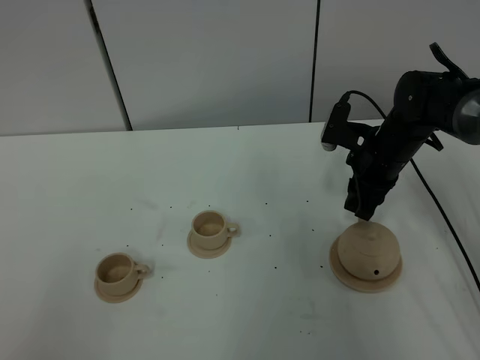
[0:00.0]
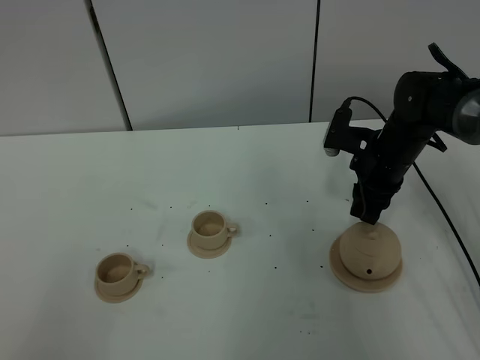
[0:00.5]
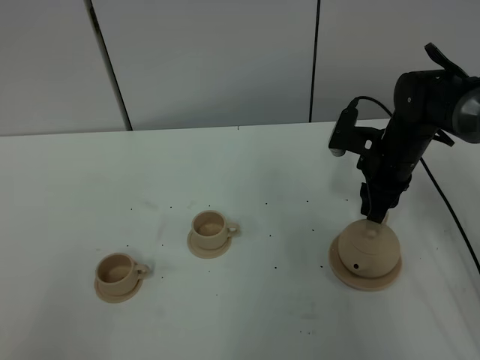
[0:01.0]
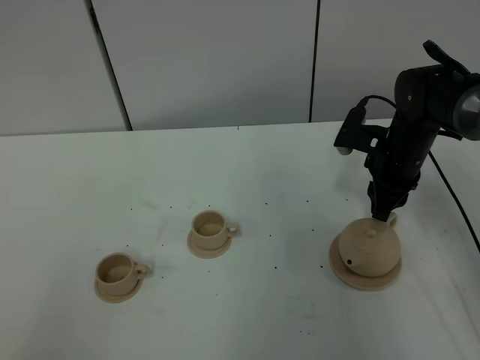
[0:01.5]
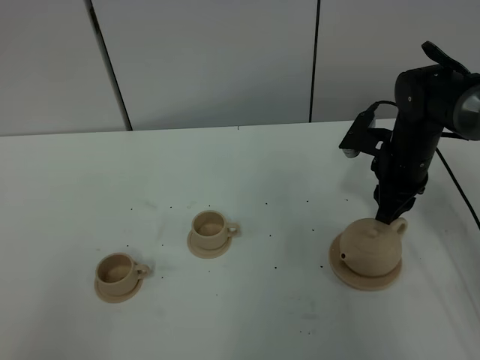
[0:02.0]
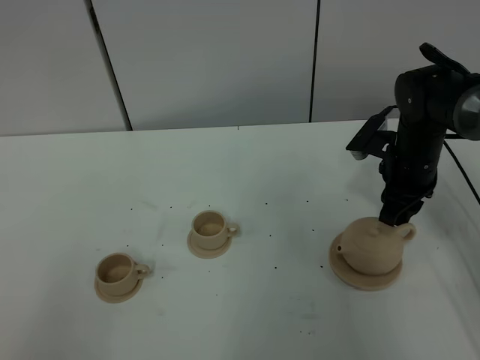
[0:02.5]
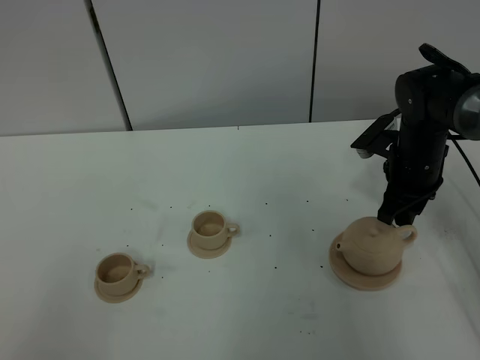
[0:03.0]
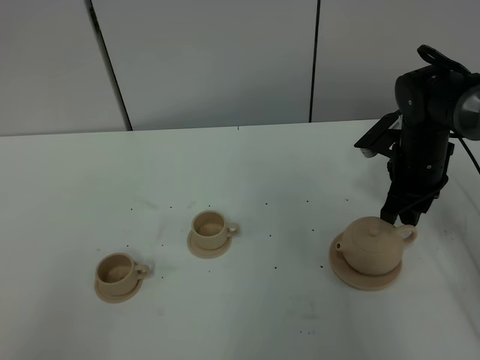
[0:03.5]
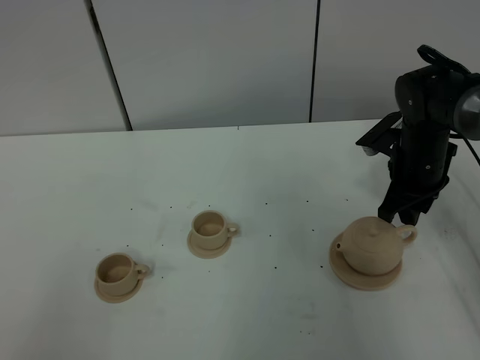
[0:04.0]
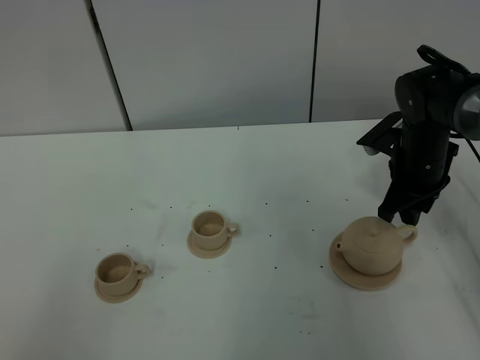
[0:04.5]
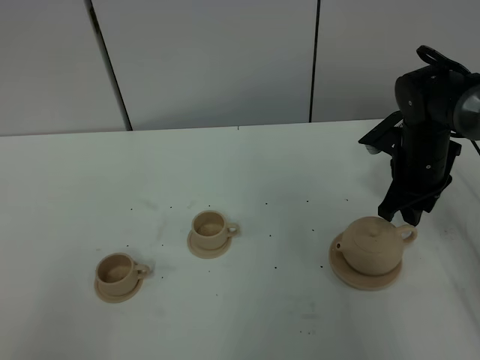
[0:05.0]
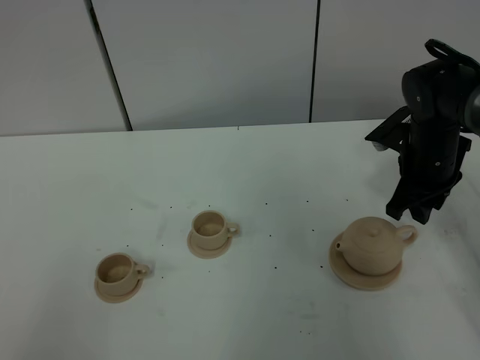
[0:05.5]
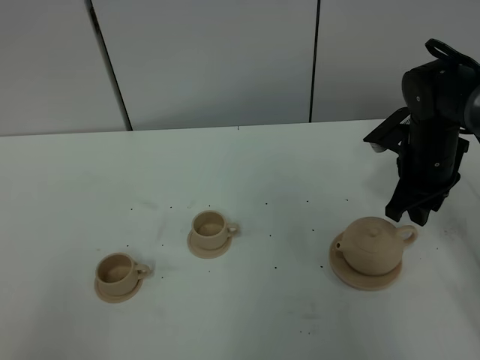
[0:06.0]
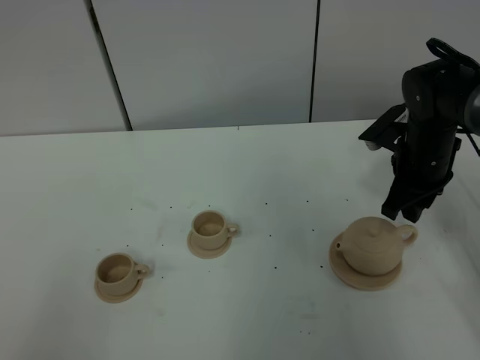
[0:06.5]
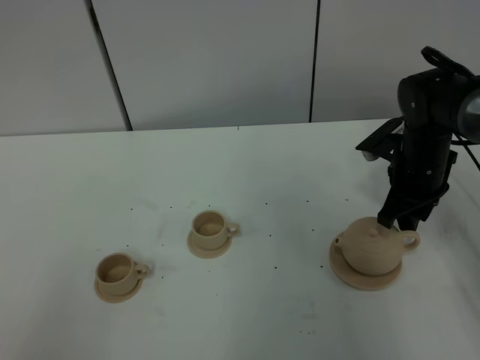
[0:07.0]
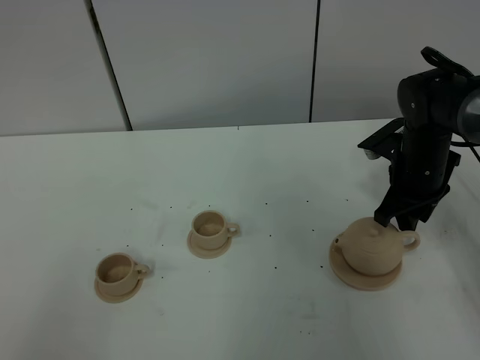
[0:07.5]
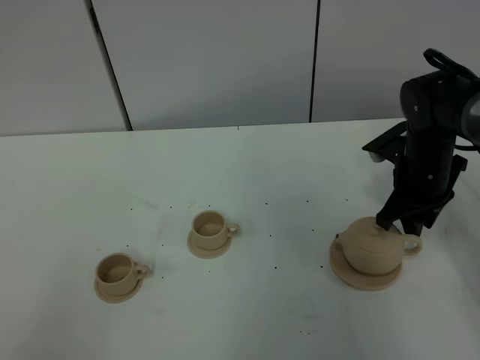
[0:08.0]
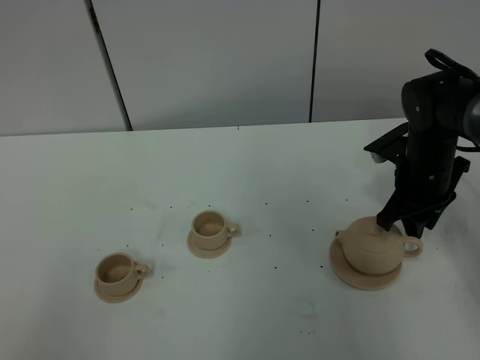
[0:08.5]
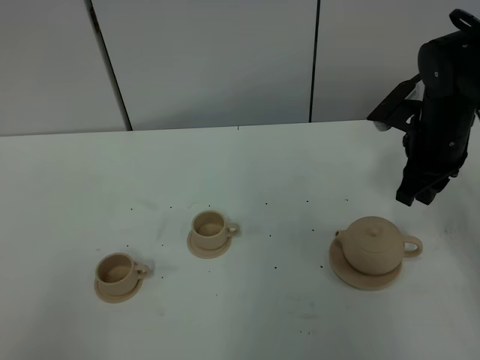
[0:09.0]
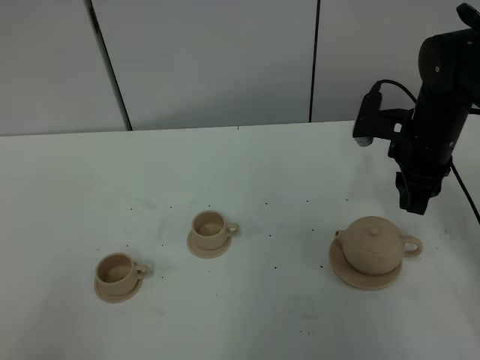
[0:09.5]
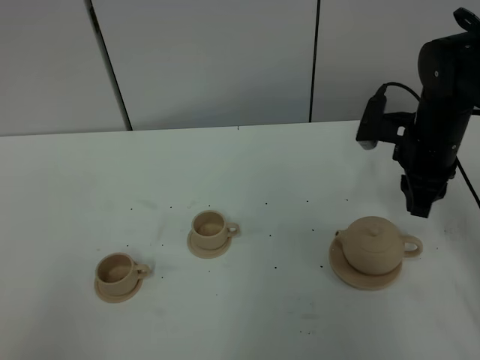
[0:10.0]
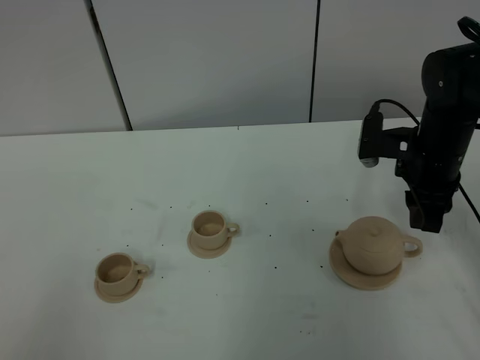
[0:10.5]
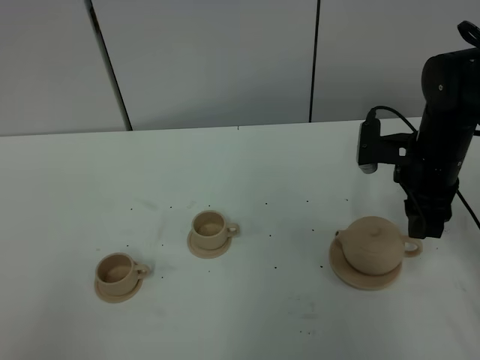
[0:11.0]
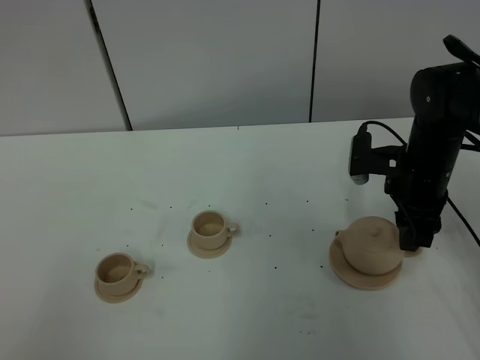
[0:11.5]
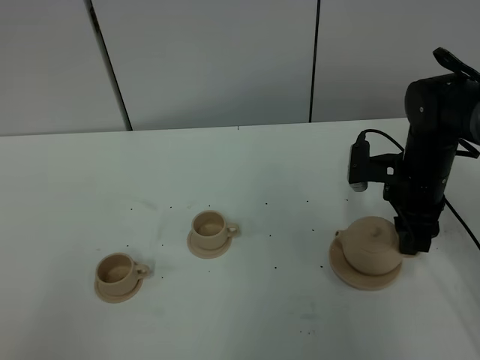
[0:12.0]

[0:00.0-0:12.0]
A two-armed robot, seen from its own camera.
Task of the whole recording: grasp the brown teapot and pour the tea into the two brown teacups one by one, put the brown teapot back in its original place.
0:00.0 to 0:02.0: The grippers stay close to where they were, moving slightly.
0:02.0 to 0:04.0: The grippers make only small movements.
0:04.0 to 0:08.0: The grippers make only small movements.
0:08.0 to 0:10.0: The right gripper goes about 5 cm upward.
0:10.0 to 0:12.0: The grippers move only a little.

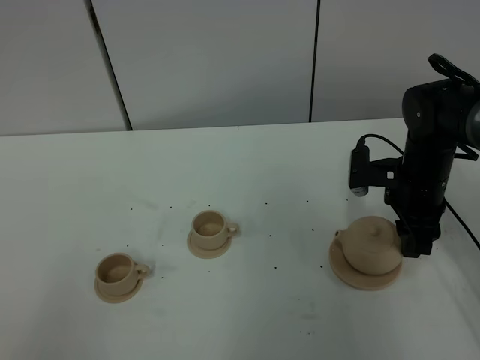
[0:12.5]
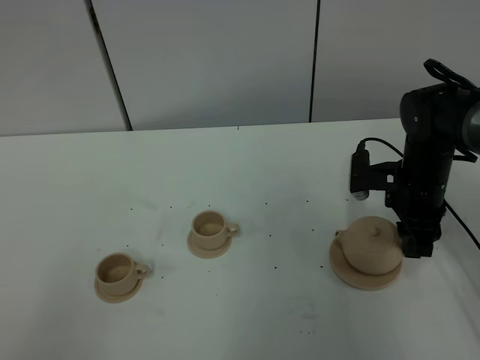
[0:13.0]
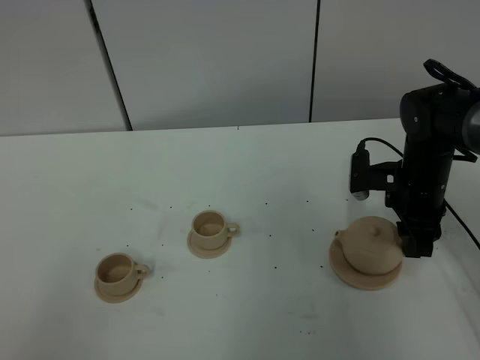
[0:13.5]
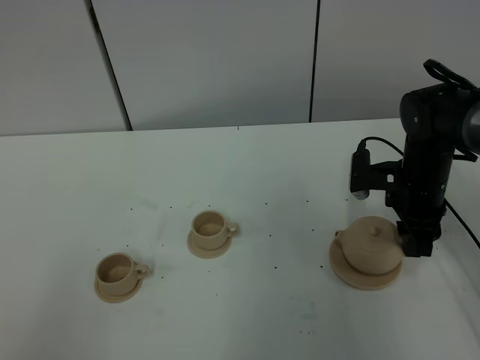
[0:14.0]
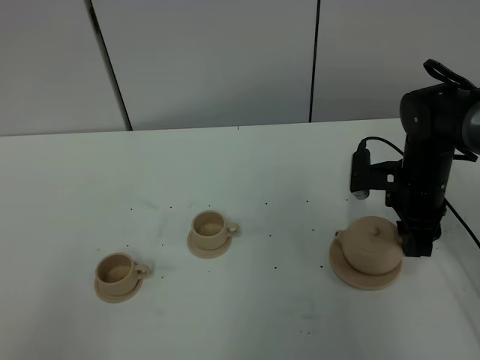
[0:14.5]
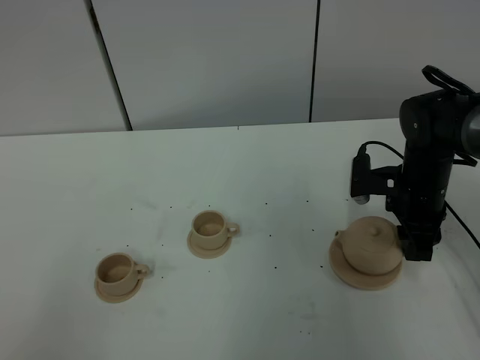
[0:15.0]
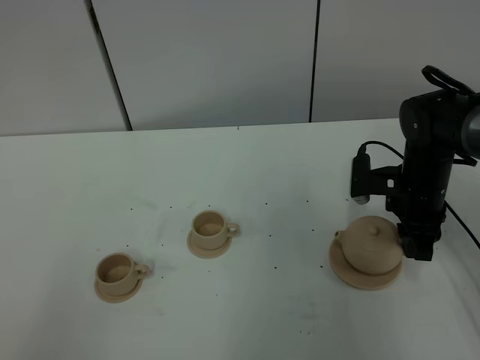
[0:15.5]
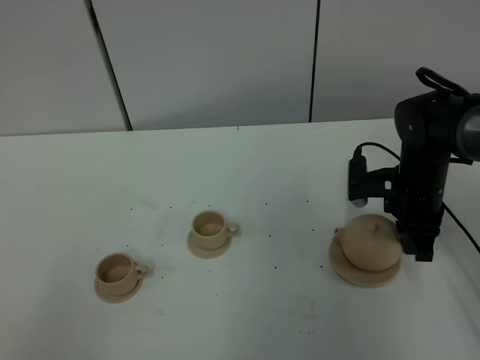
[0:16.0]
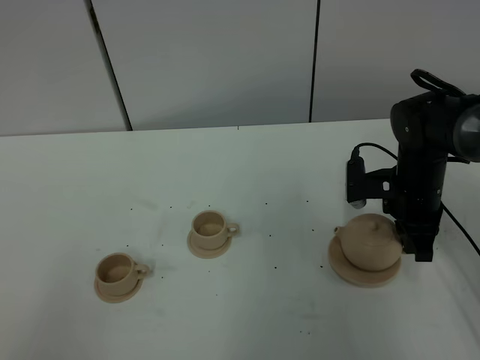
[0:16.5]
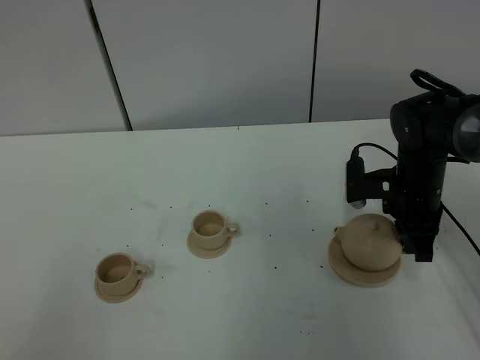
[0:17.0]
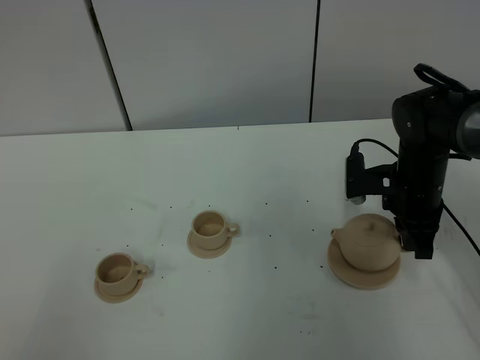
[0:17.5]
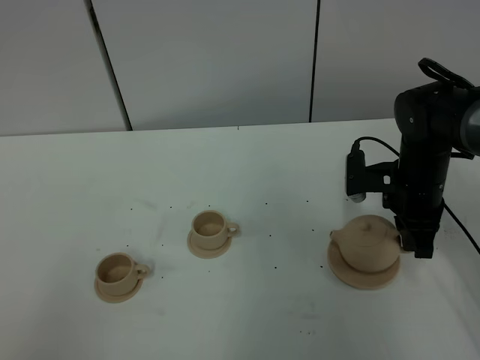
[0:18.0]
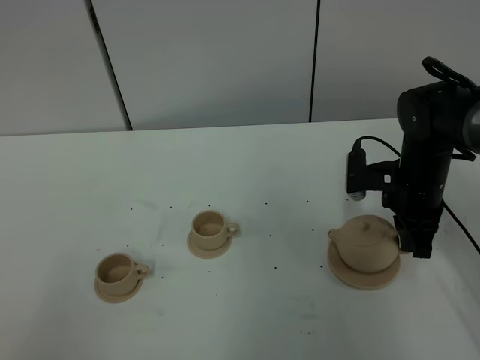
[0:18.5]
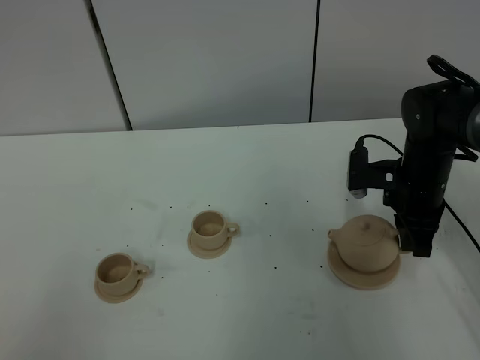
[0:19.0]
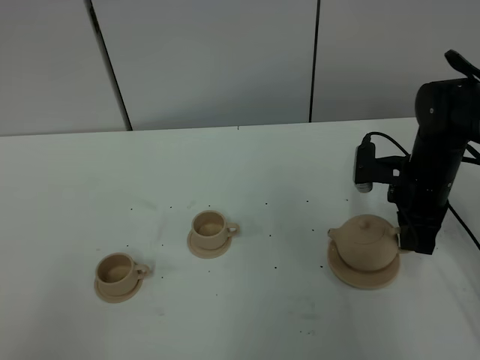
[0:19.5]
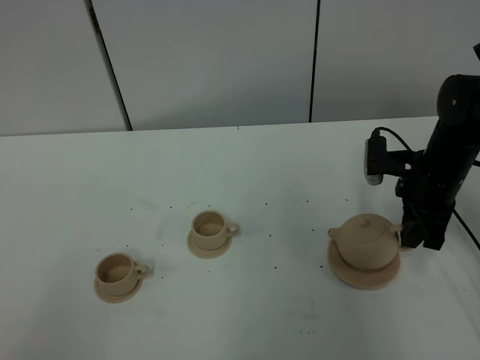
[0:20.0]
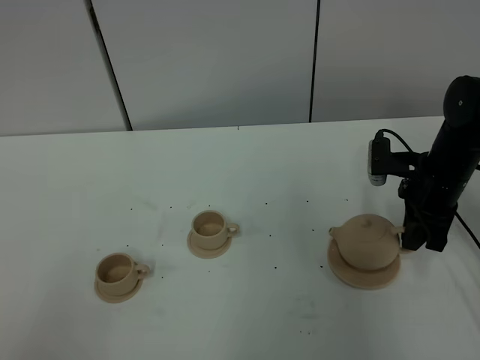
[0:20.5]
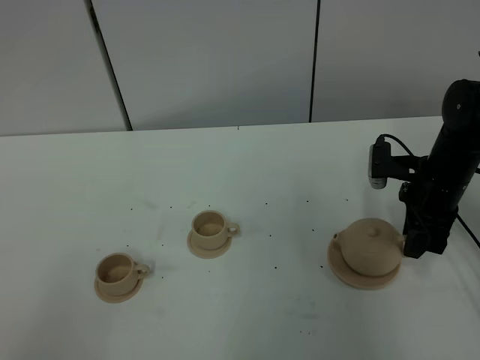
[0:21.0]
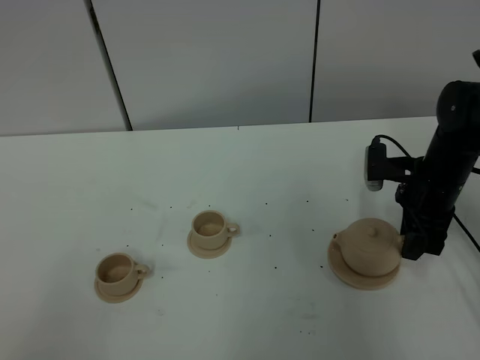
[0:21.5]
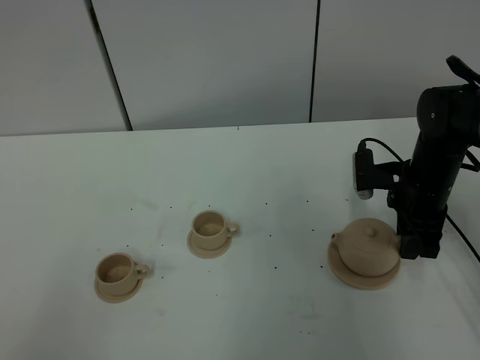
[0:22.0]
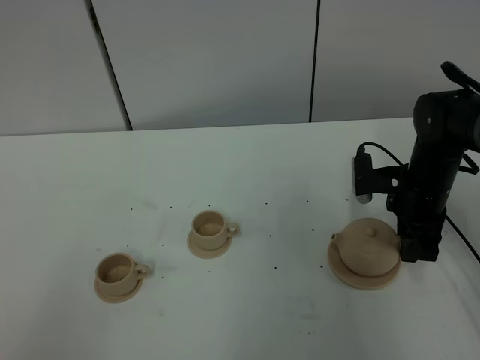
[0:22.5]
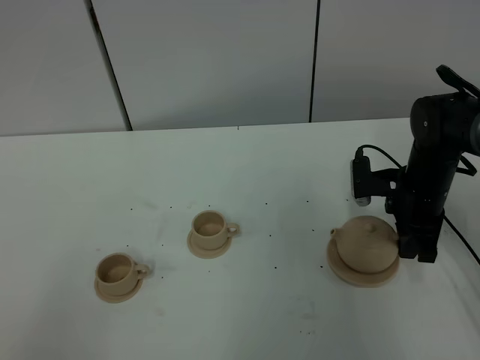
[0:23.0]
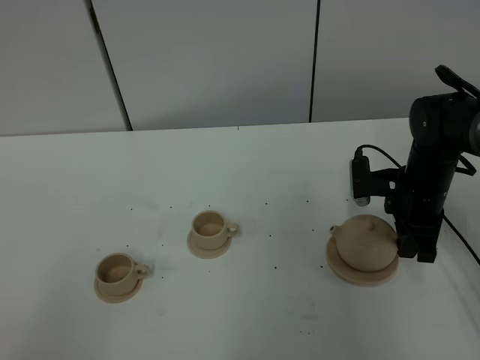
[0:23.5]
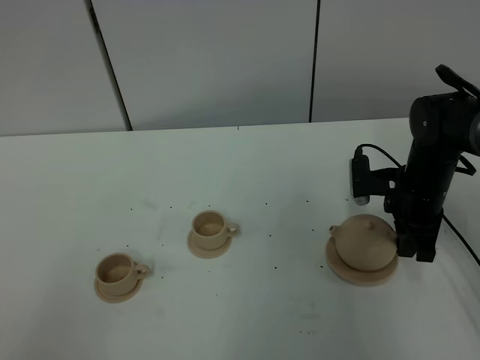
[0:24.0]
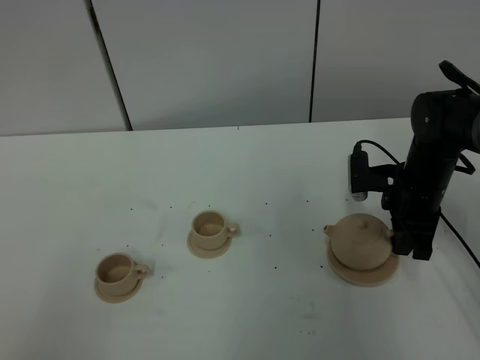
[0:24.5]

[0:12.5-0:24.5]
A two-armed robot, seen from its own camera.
Task of the whole recording: grasp the brown teapot and pour the tea into the two brown teacups one by one, put the brown teapot back in its original place.
0:12.5 to 0:14.5: The two grippers keep their place.
0:14.5 to 0:16.5: The right gripper closes its fingers.
0:16.5 to 0:20.5: There are only small adjustments of the grippers.
0:20.5 to 0:22.5: The right gripper opens up.
0:22.5 to 0:24.5: The right gripper closes its fingers.

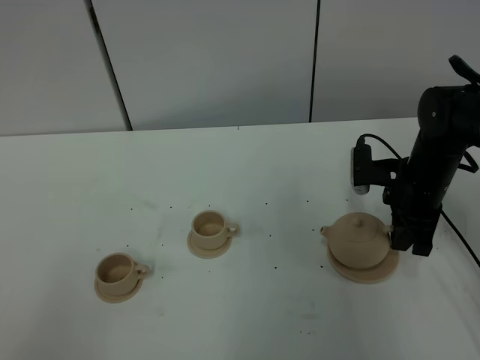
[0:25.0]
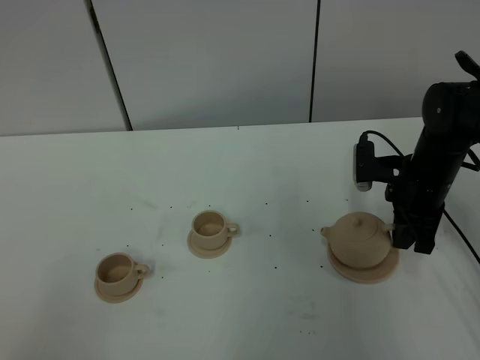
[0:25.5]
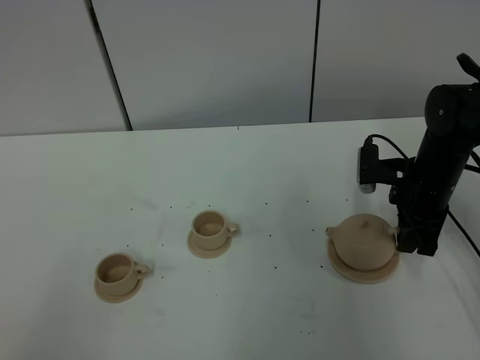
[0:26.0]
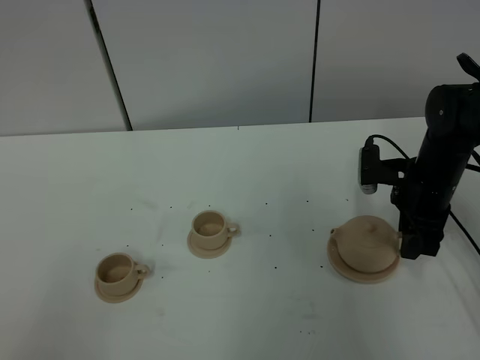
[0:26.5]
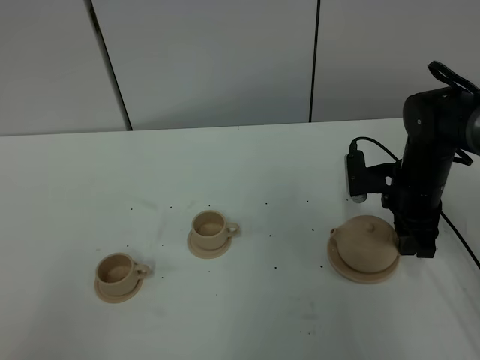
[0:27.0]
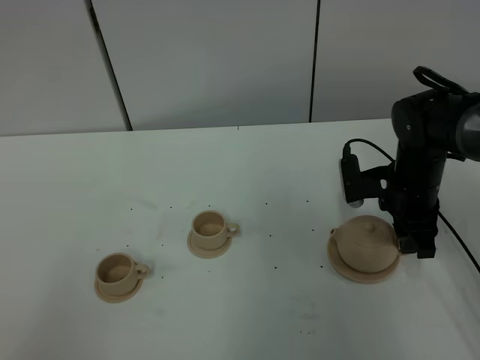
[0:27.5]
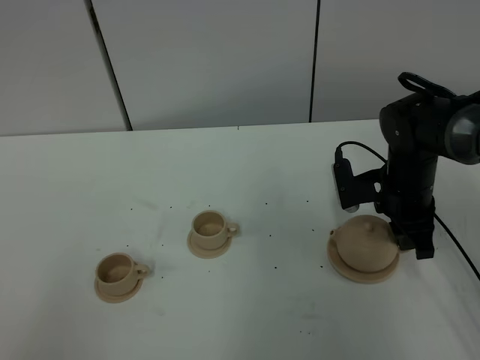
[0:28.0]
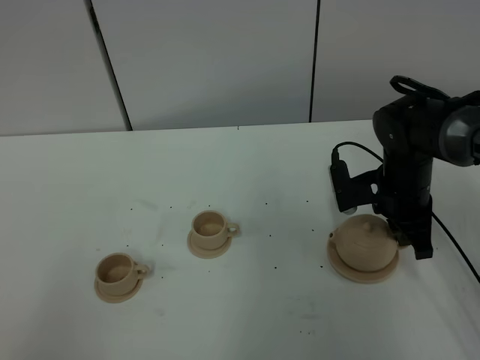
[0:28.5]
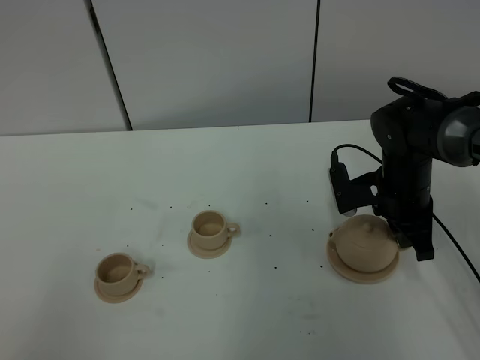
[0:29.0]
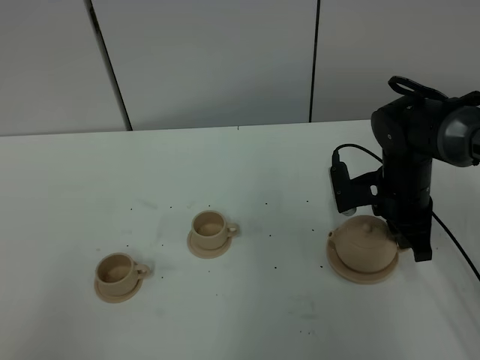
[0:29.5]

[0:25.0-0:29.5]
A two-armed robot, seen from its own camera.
Task of the whole recording: grasp the brown teapot and pour the tea into the two brown teacups one by one, put the brown teapot back in its original place.
0:25.0 to 0:27.0: The right gripper opens its fingers.
0:27.0 to 0:29.5: The right gripper closes.
